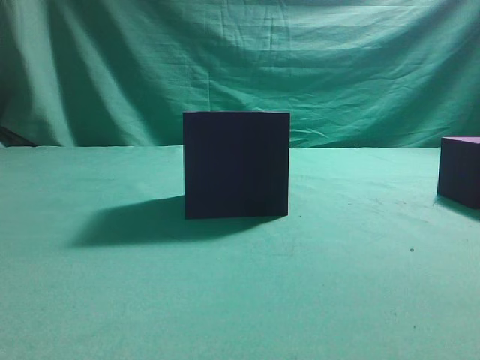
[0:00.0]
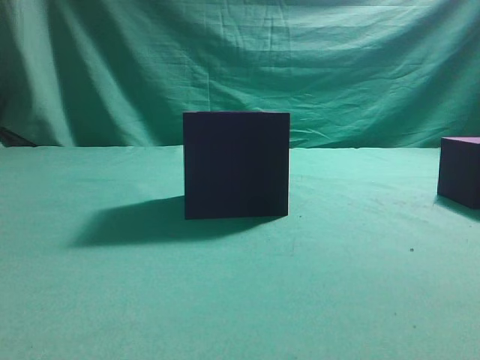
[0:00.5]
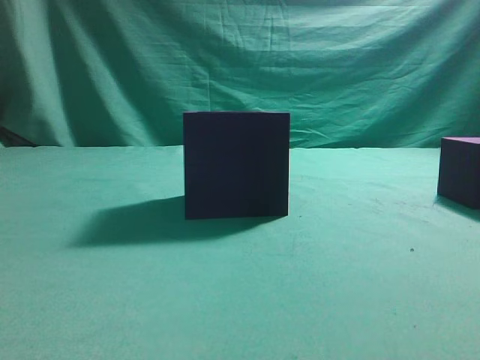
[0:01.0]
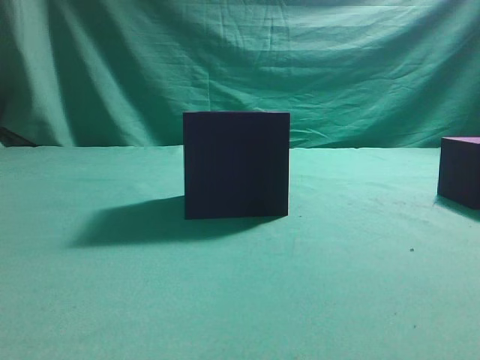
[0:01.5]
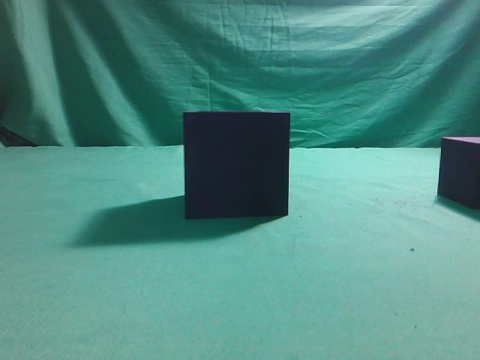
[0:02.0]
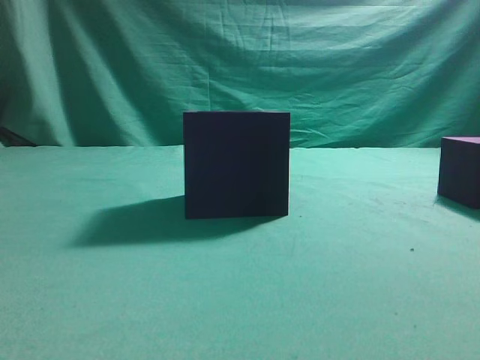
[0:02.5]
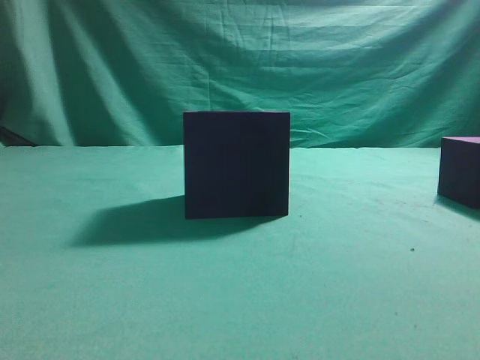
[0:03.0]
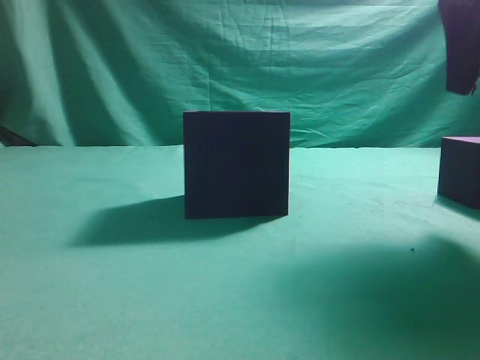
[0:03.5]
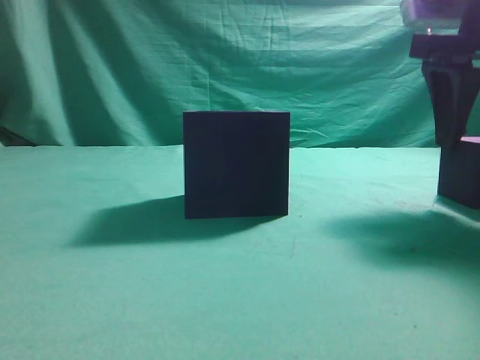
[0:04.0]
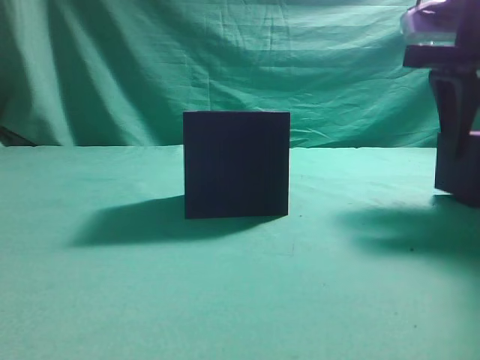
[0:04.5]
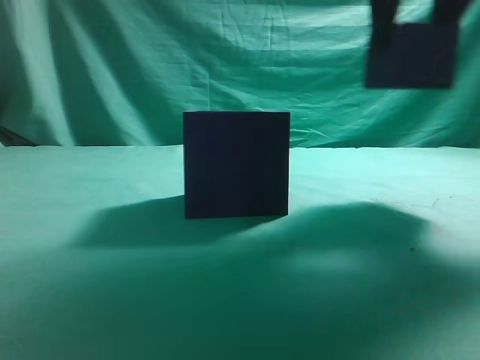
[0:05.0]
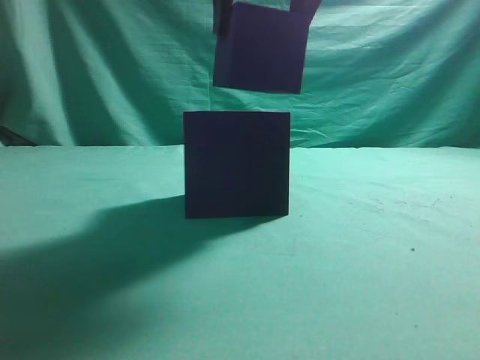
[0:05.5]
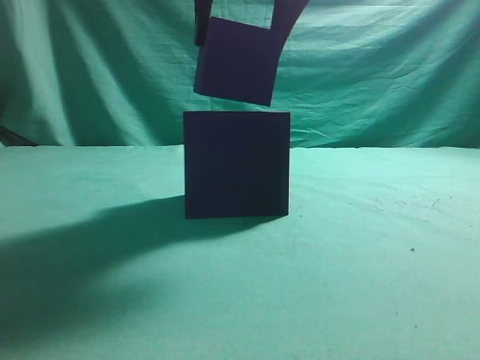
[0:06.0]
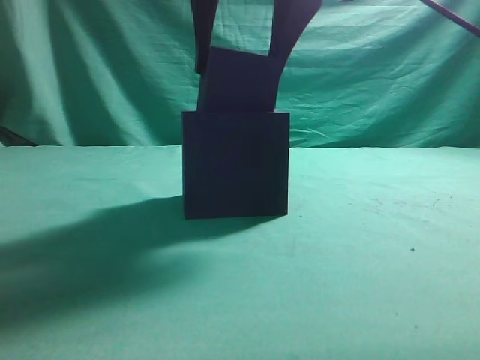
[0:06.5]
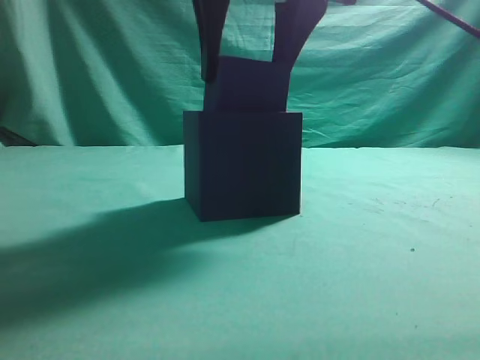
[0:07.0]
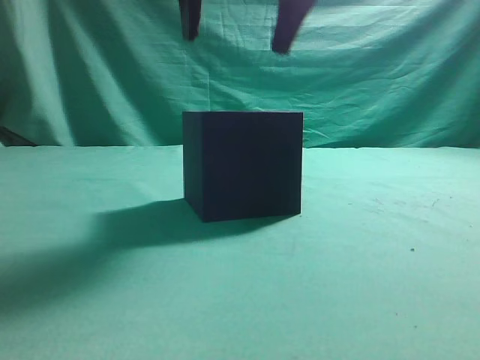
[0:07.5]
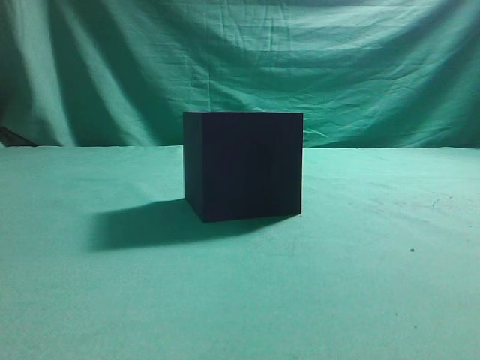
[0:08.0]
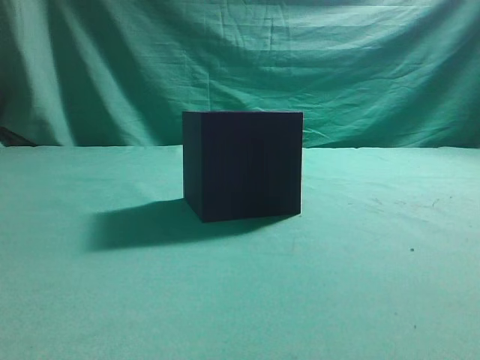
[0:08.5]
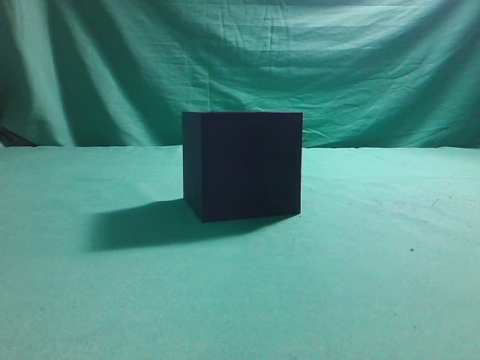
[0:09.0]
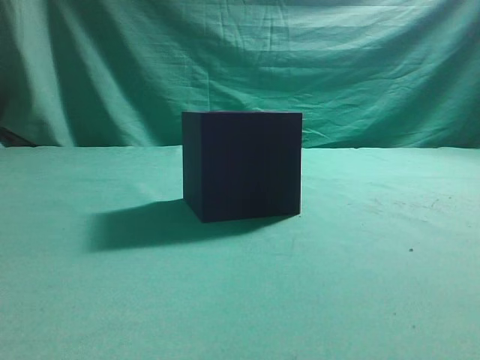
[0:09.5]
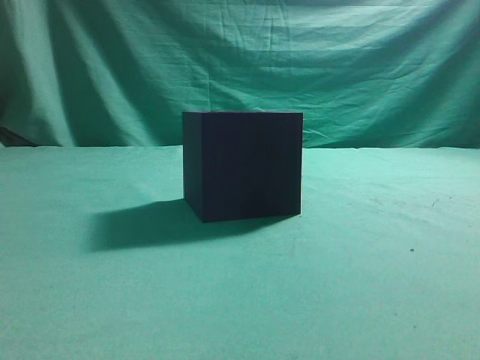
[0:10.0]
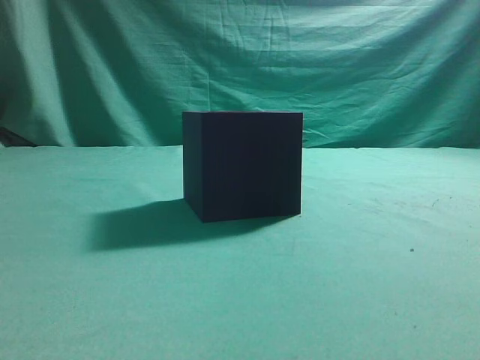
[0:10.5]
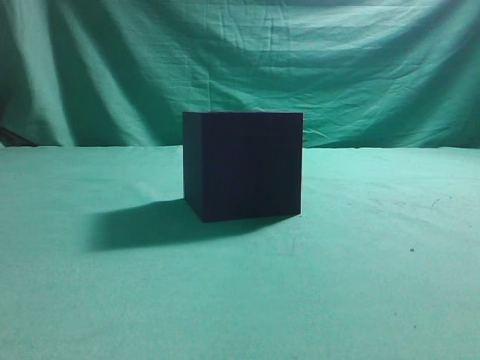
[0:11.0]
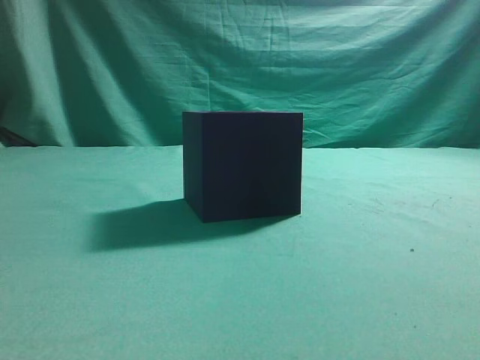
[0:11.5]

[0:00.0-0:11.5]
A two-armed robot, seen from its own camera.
Task of the whole recording: pick up the cube block and place it into the cube groove.
Step, 0:00.0 to 0:04.5: Grasp the cube.
Step, 0:05.0 to 0:07.0: Place cube into the cube-shaped recess.
0:02.0 to 0:04.0: The right gripper is displaced forward by about 25 cm, and opens.
0:04.0 to 0:06.0: The right gripper travels to the left and upward by approximately 20 cm.
0:06.0 to 0:07.5: The grippers move only a little.
0:07.5 to 0:09.5: The right gripper travels backward and to the right by some 35 cm, and closes.
